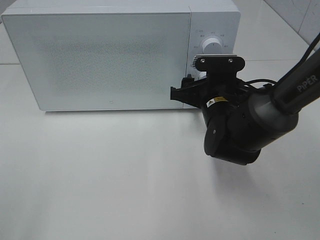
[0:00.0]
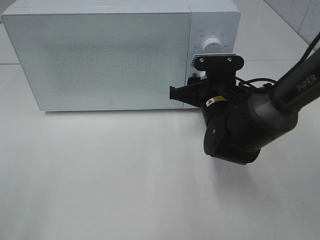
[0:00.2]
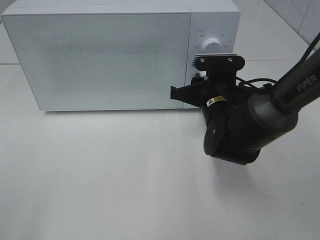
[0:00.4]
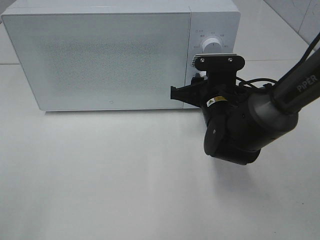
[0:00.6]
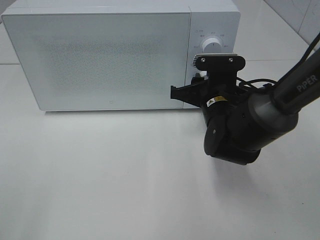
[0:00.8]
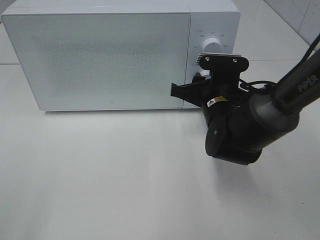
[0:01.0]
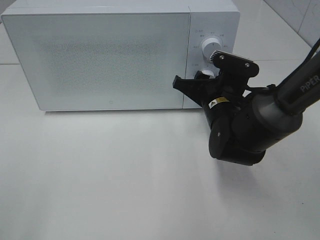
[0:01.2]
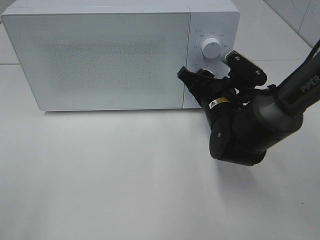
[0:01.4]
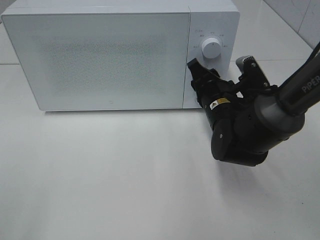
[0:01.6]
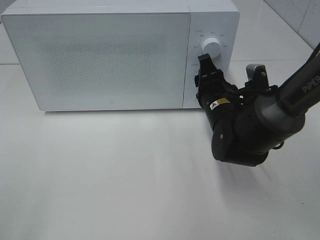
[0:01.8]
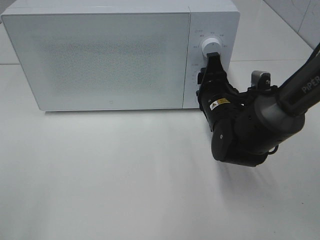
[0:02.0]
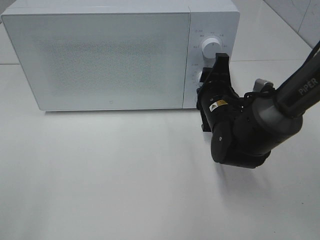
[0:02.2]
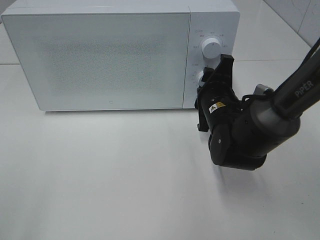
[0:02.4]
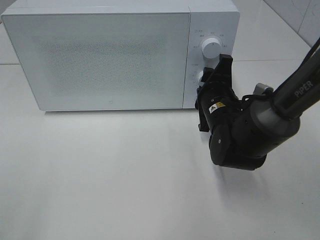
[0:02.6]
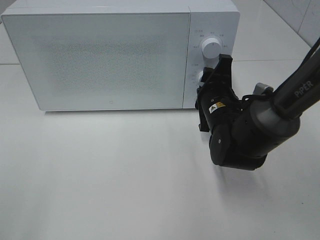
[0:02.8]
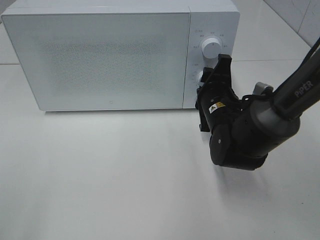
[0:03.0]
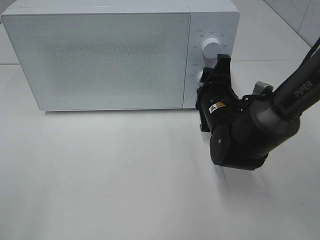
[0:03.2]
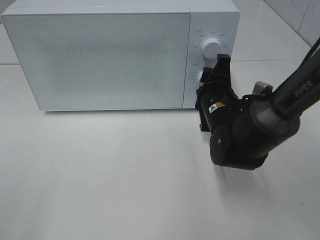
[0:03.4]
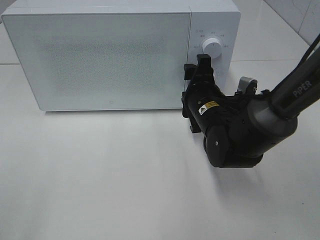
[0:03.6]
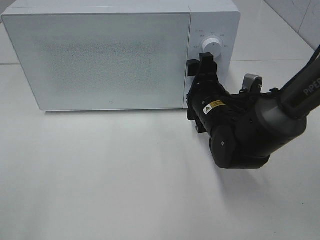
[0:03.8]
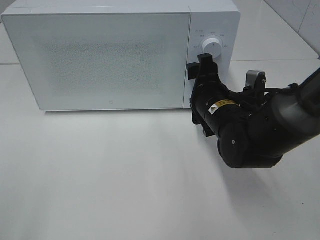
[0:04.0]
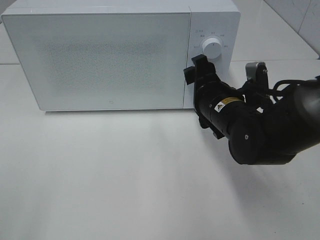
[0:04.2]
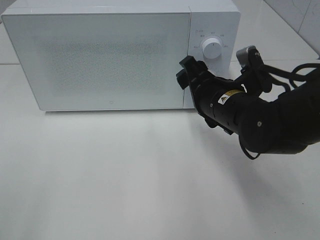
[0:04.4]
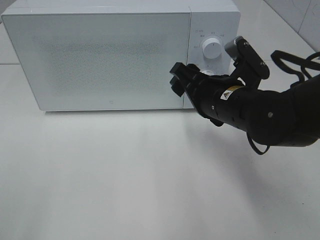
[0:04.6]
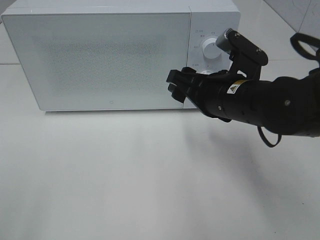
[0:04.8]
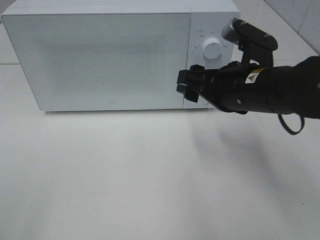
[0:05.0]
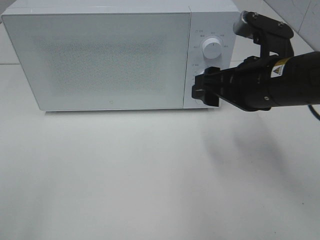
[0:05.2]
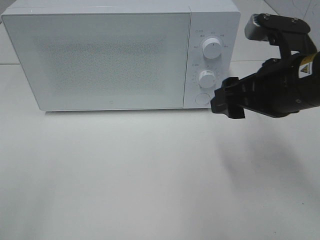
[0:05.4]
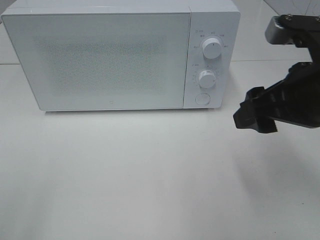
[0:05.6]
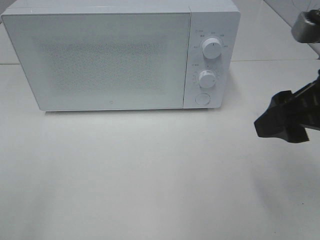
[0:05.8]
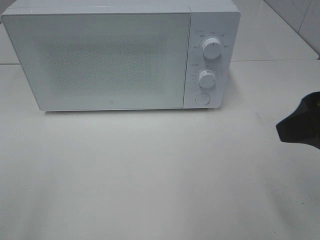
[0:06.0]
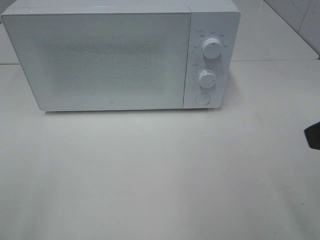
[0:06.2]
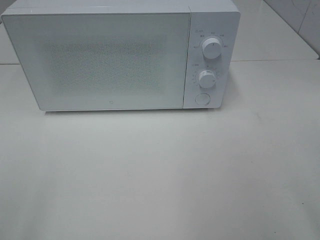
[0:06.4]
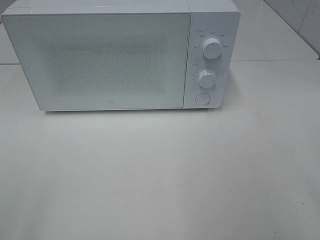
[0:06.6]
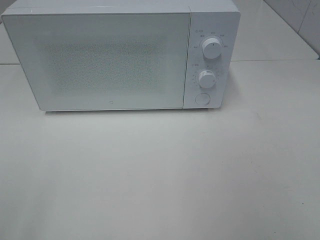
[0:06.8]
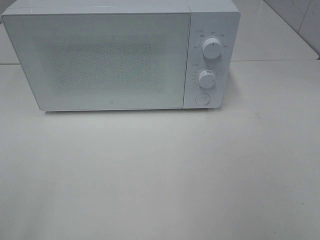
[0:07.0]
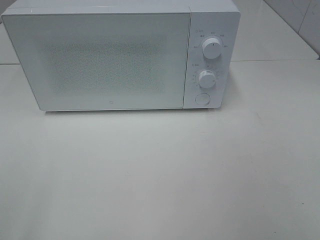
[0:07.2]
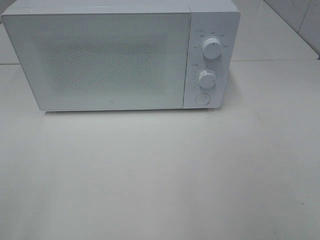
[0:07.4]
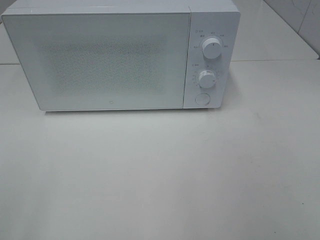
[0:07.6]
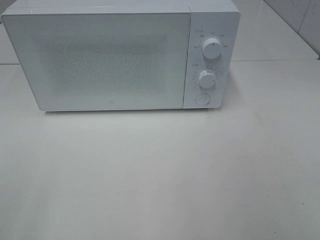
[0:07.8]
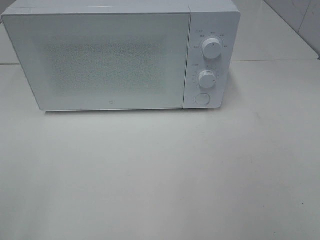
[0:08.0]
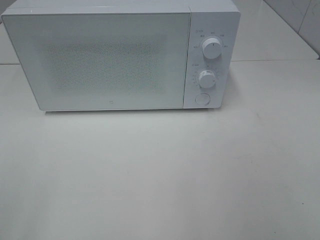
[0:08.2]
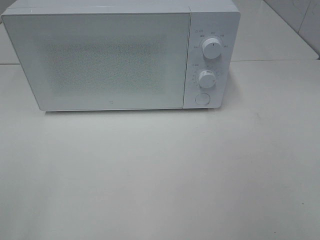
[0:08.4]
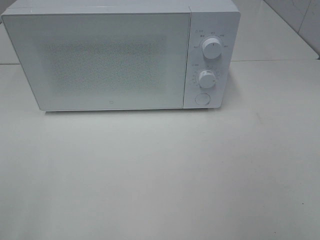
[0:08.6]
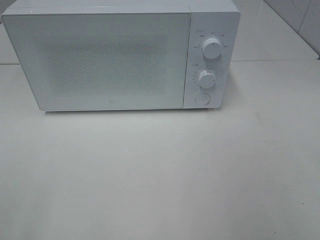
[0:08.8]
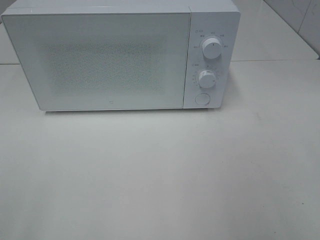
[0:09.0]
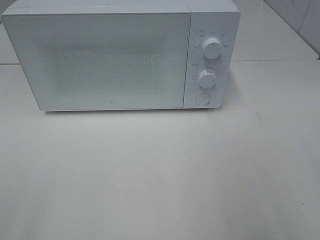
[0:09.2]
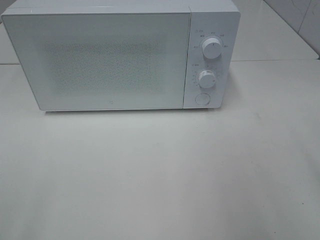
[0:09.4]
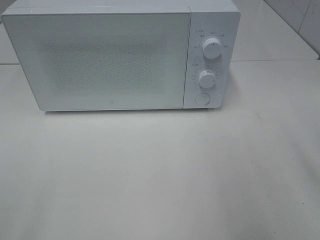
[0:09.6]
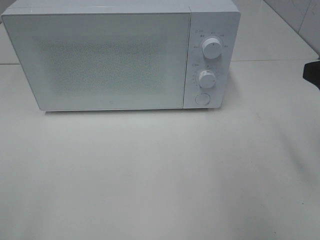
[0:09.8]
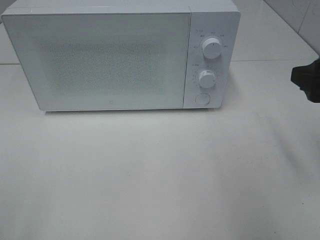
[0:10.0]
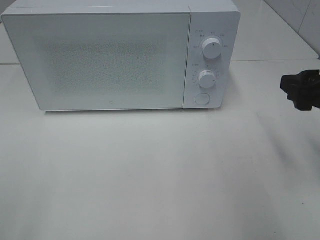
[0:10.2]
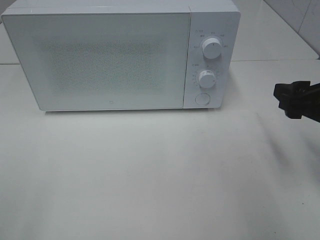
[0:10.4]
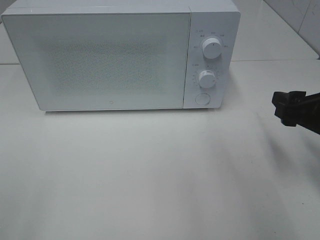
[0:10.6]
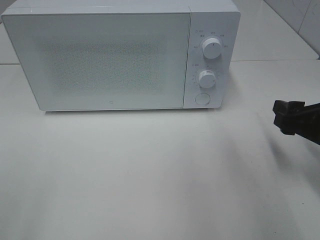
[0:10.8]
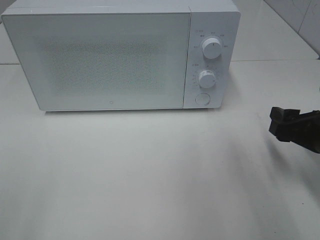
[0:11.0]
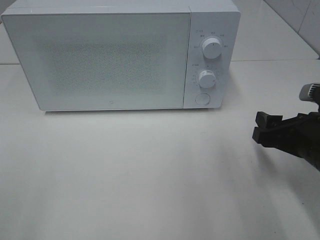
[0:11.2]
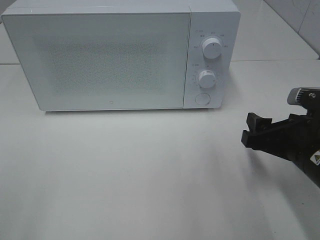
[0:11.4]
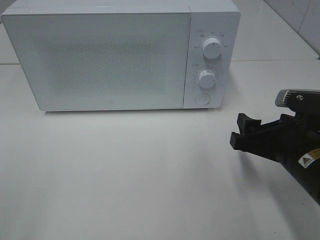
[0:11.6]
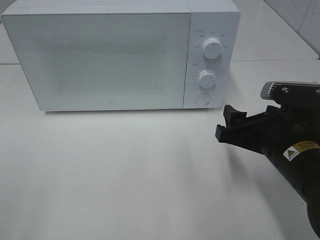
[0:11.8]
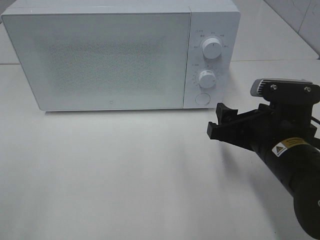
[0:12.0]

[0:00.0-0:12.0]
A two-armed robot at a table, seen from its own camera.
Task of the whole recording: Heat the burger.
Step, 0:00.0 to 0:03.4: Right hand: twist timer button.
0:00.0 to 0:01.6: The right gripper closes its fingers.
0:03.0 to 0:04.4: The right gripper shifts by approximately 5 cm, and opens.
0:04.4 to 0:06.0: The right gripper goes some 20 cm upward, backward and to the right.
0:06.0 to 0:07.6: The right gripper is displaced backward and to the right by some 15 cm.
0:09.0 to 0:10.4: The right gripper goes approximately 15 cm forward and downward.
0:10.4 to 0:12.0: The right gripper shifts approximately 10 cm to the left and downward.

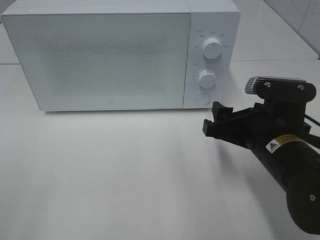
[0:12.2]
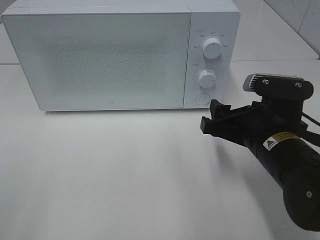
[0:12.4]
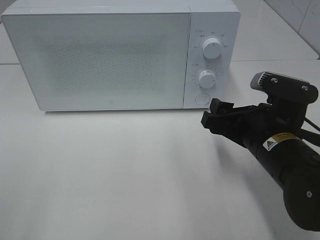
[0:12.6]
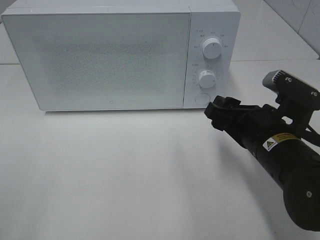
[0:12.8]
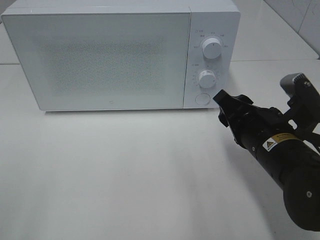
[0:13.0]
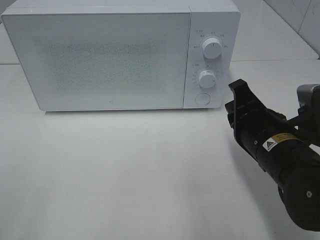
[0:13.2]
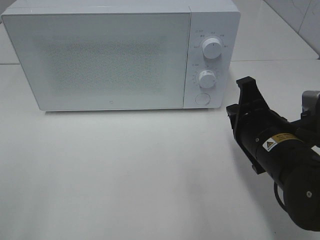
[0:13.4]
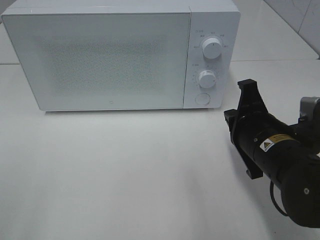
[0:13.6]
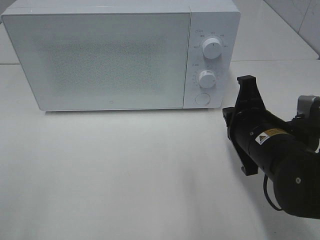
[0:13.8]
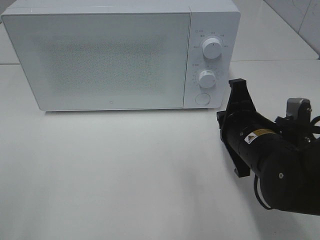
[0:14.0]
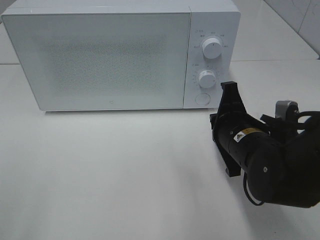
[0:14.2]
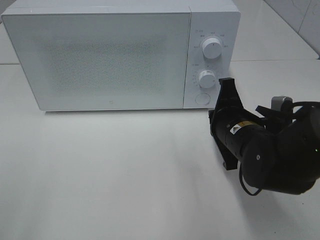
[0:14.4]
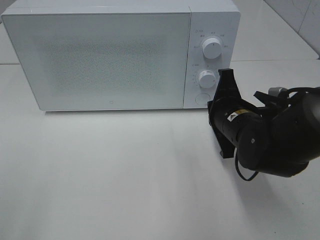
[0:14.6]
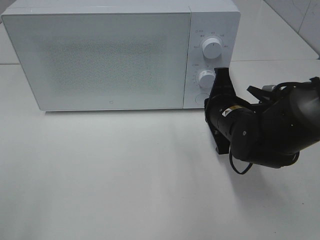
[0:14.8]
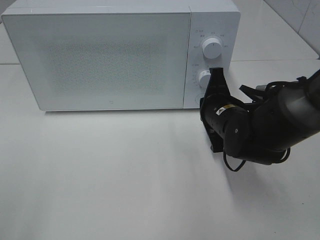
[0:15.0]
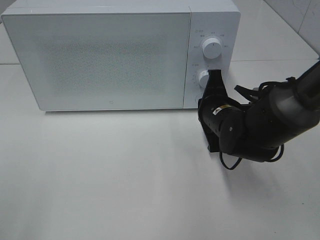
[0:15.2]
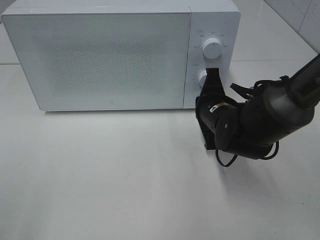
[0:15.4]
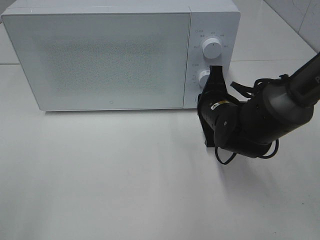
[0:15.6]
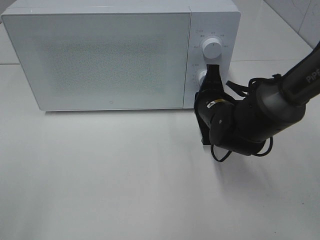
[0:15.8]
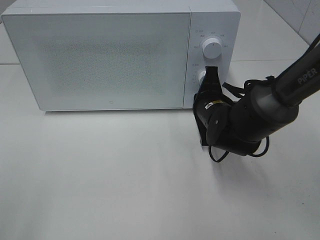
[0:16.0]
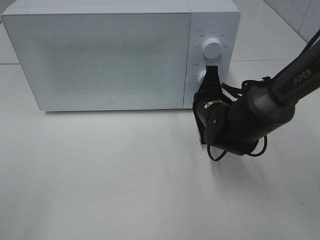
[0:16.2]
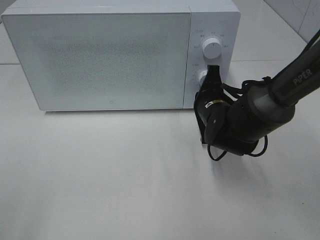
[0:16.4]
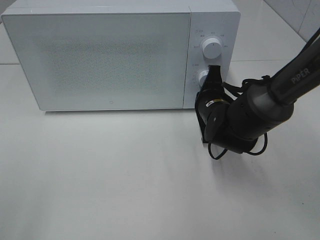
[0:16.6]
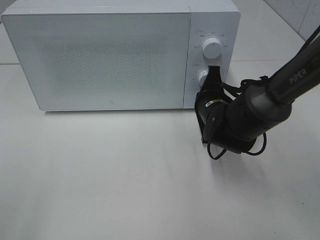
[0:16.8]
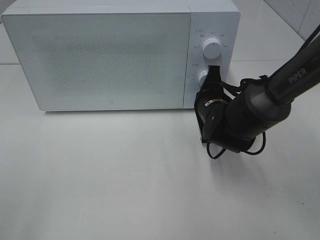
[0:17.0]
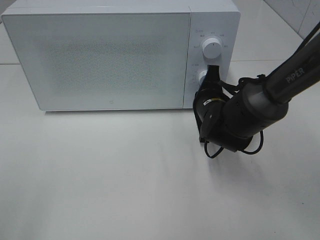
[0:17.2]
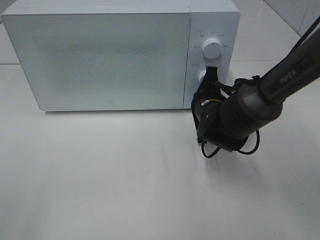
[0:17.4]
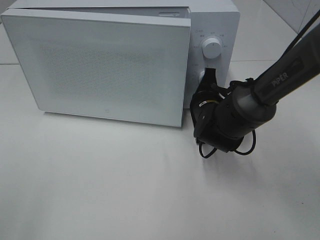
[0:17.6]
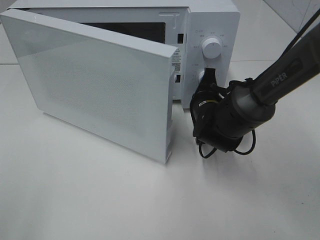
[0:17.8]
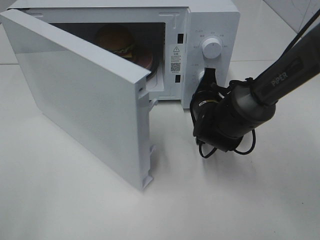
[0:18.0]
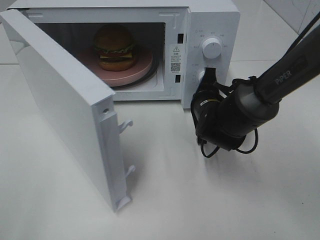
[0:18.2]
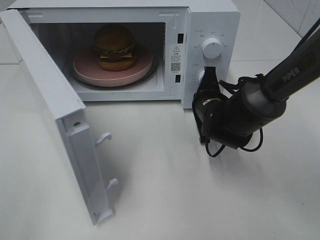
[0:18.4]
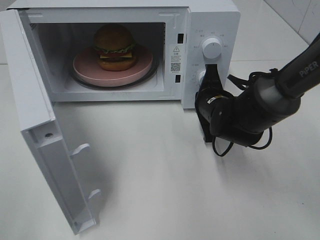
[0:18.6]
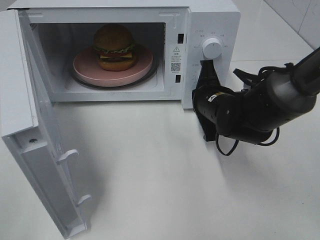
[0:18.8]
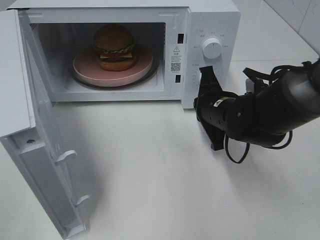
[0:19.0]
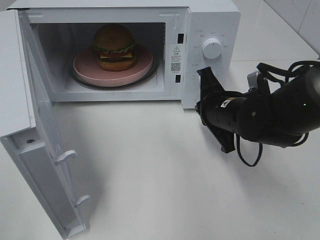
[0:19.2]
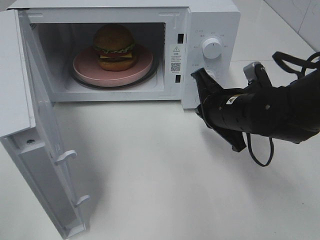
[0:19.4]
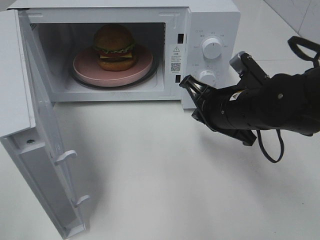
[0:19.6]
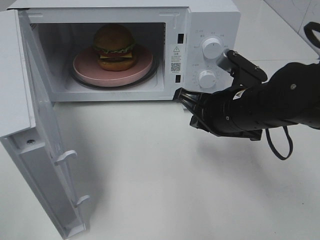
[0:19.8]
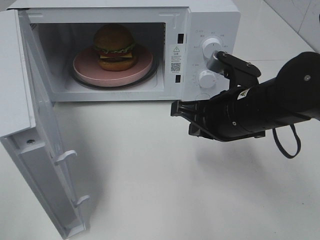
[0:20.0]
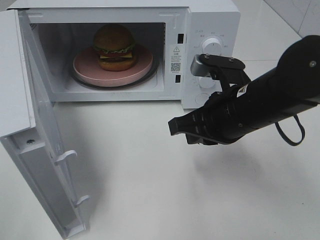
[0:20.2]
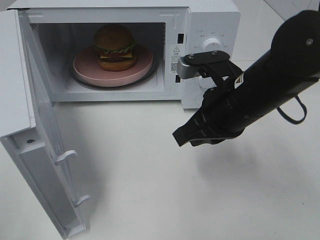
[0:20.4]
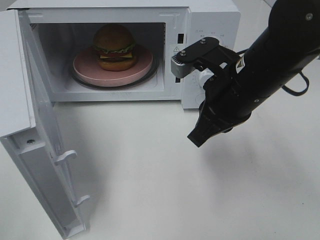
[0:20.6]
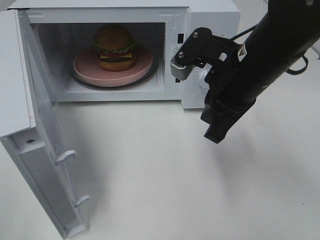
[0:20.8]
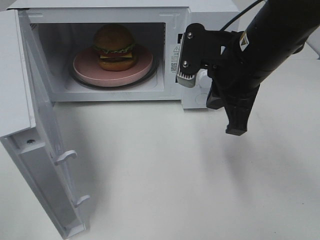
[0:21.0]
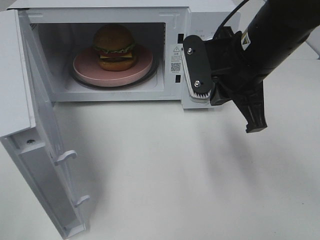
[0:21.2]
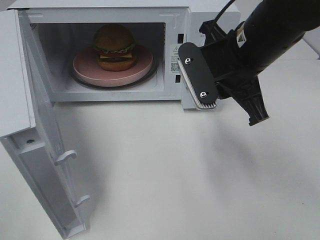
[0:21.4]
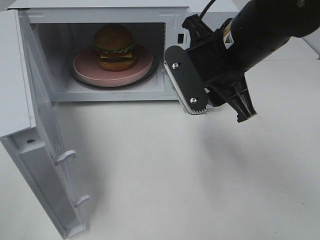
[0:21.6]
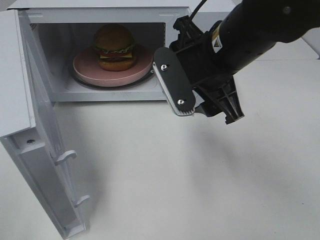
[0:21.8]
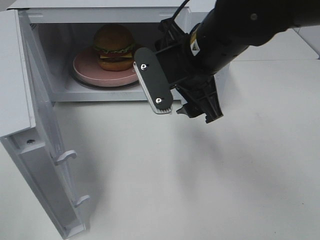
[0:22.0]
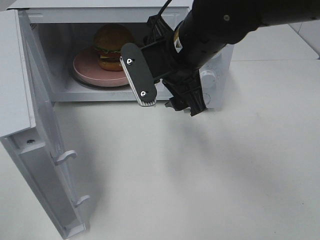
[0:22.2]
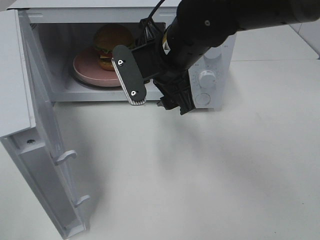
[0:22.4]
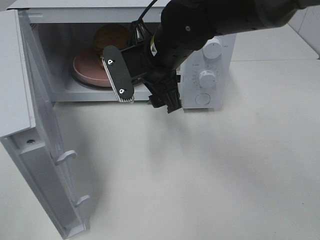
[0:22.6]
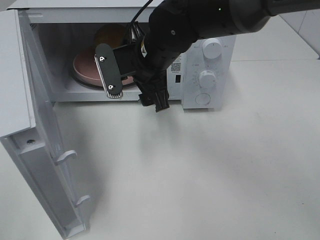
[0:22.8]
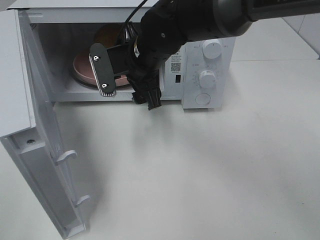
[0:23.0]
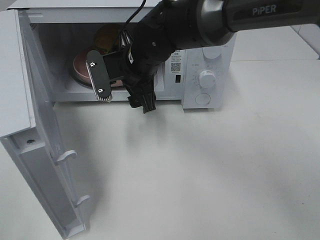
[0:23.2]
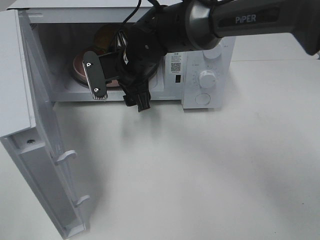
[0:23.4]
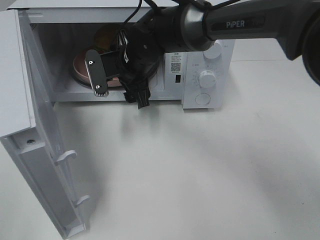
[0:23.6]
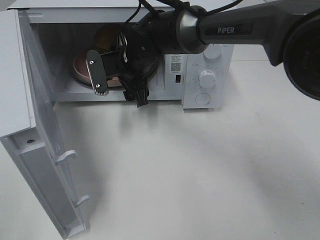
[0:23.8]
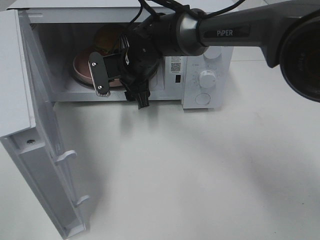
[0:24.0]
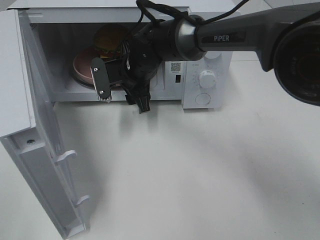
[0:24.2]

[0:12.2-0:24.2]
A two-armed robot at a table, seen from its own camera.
Task of the whole recording: Heat the burger.
Step, 0:12.2 to 0:18.6: Right hand: press the switch.
0:12.2 to 0:13.8: The right gripper closes its fingers.
0:13.8 to 0:15.2: The right gripper goes about 10 cm forward.
0:15.2 to 0:16.6: The grippers move only a little.
0:18.2 to 0:19.8: The right gripper is displaced backward and upward by roughly 15 cm.
0:19.8 to 0:21.2: The right gripper shifts some 10 cm upward.
0:21.2 to 0:22.6: The right gripper shifts about 10 cm to the left and forward, and opens.
0:22.6 to 0:24.2: The right gripper shifts some 10 cm forward and downward.
